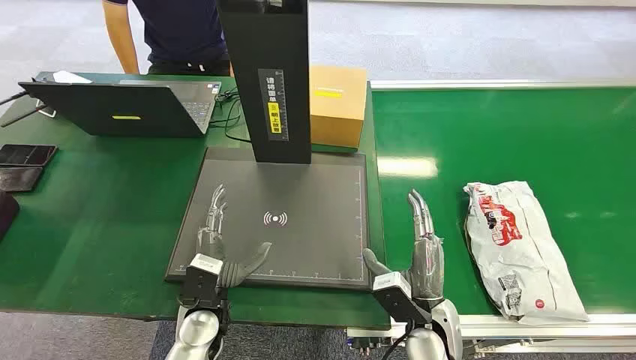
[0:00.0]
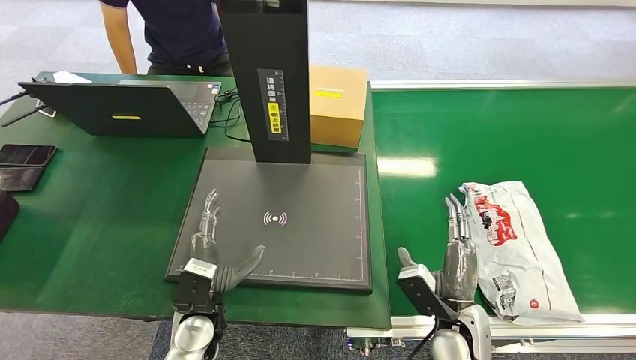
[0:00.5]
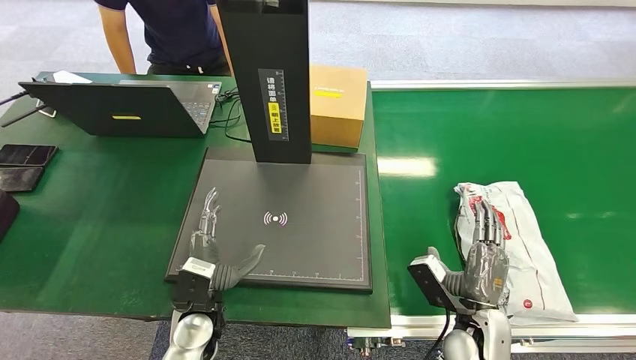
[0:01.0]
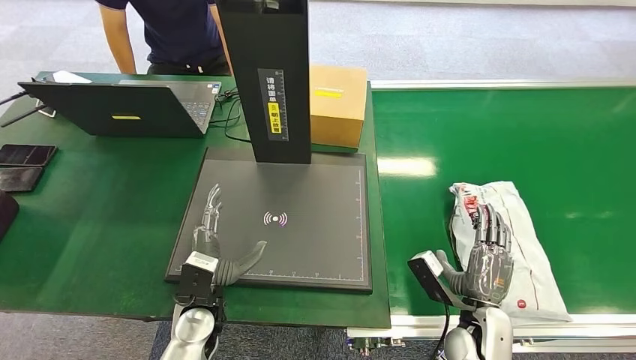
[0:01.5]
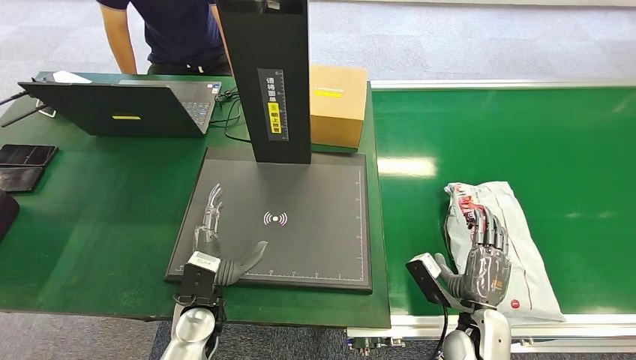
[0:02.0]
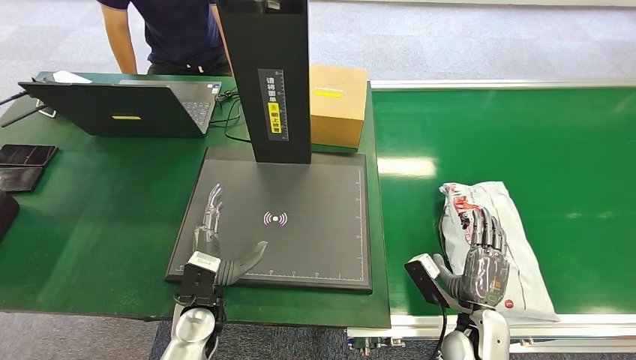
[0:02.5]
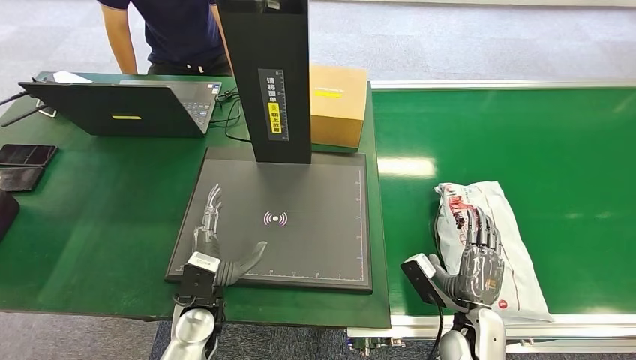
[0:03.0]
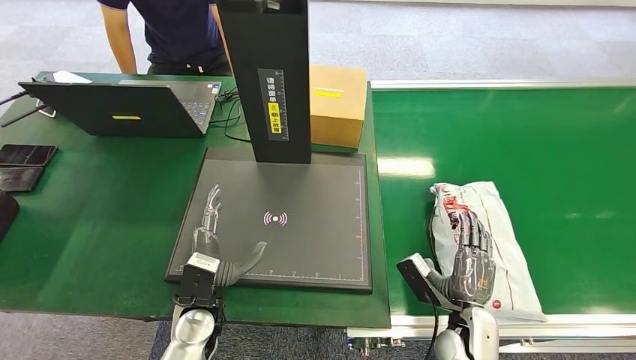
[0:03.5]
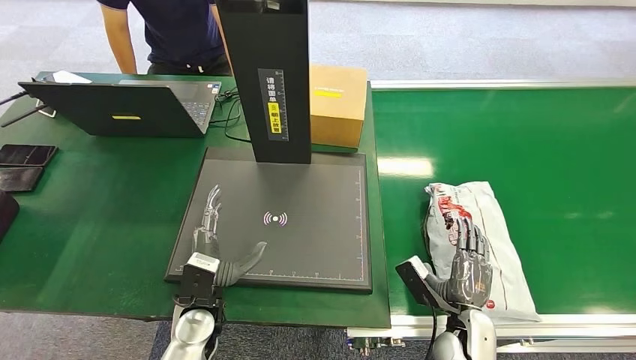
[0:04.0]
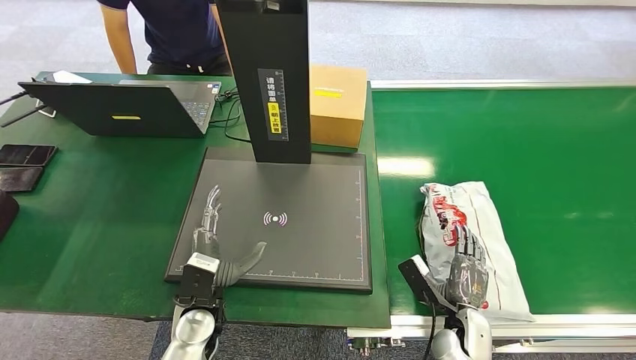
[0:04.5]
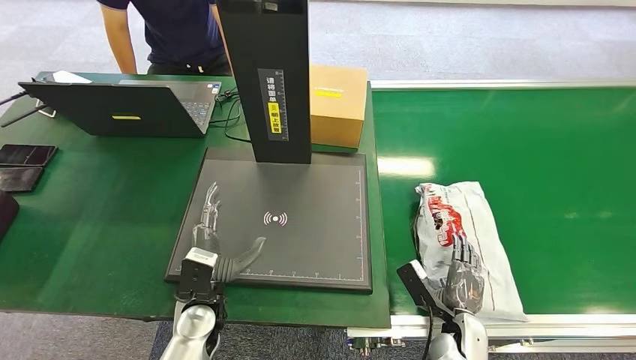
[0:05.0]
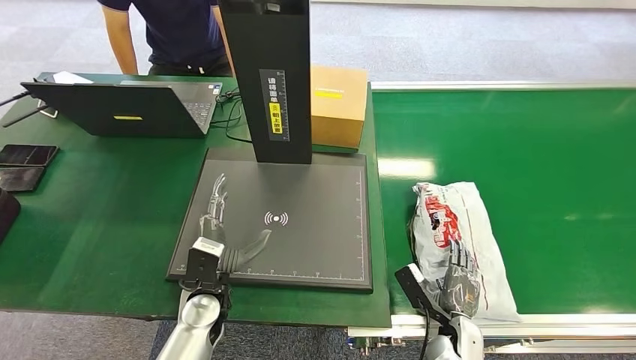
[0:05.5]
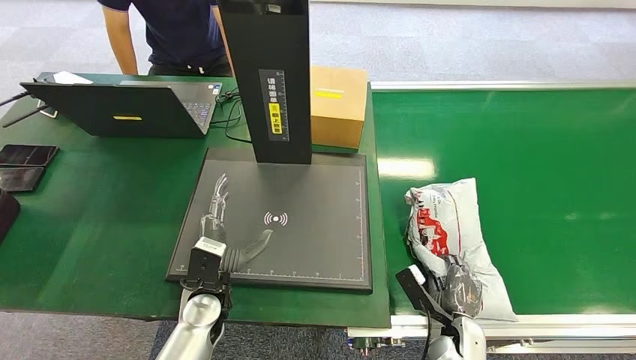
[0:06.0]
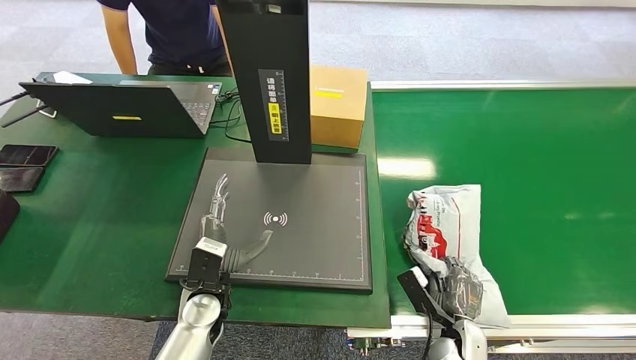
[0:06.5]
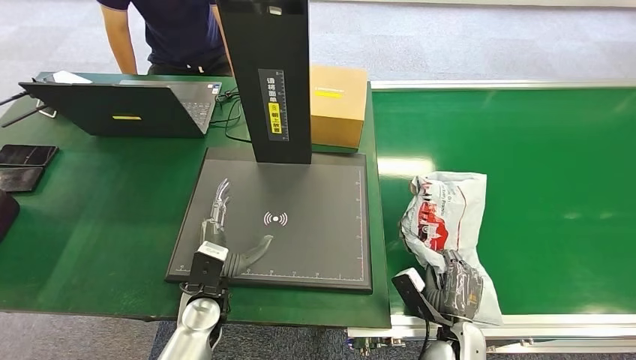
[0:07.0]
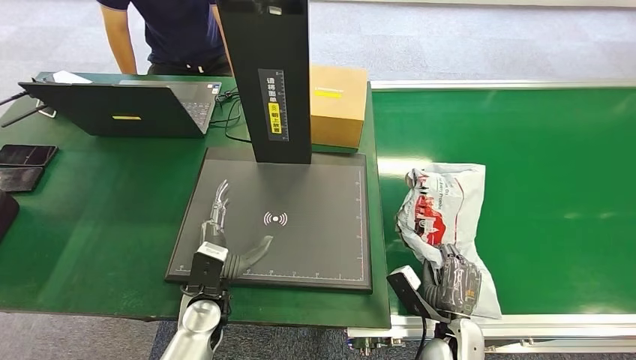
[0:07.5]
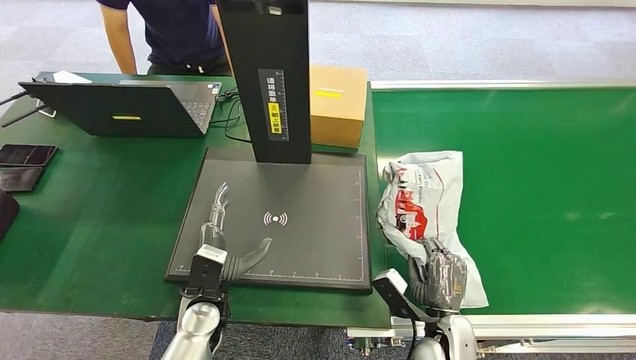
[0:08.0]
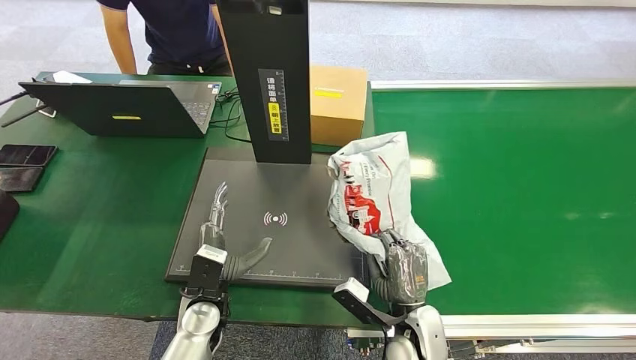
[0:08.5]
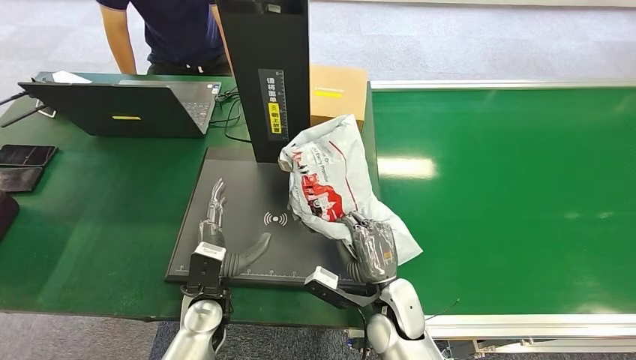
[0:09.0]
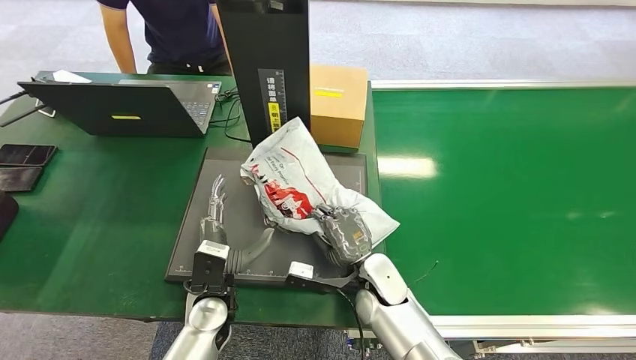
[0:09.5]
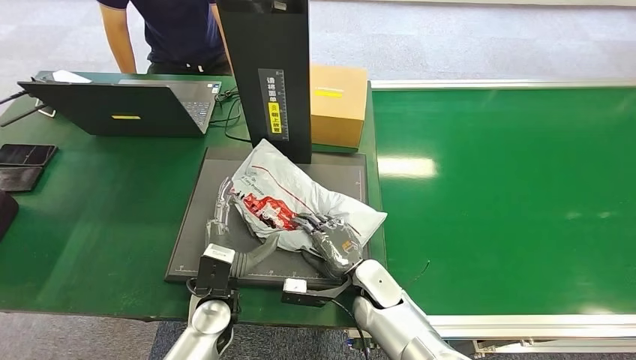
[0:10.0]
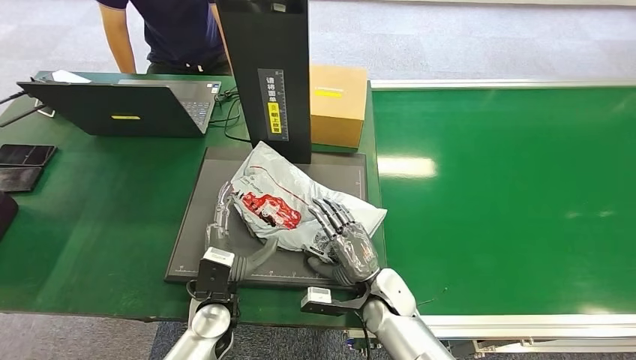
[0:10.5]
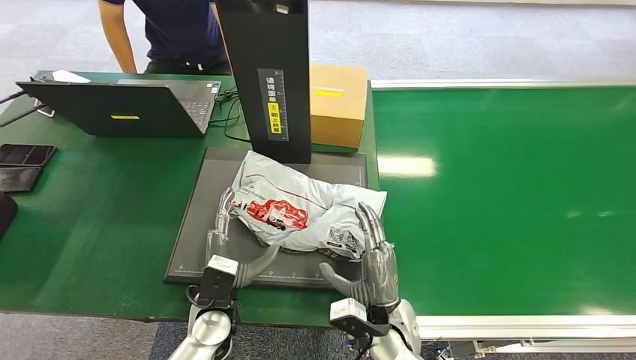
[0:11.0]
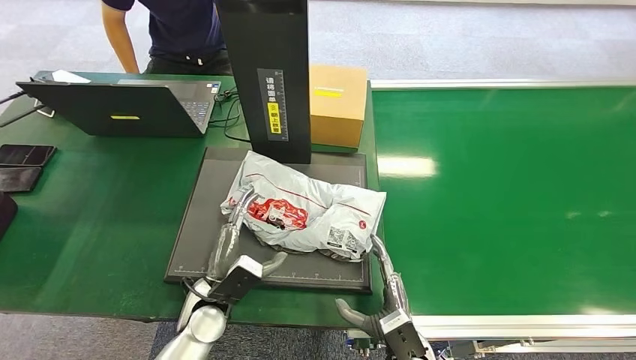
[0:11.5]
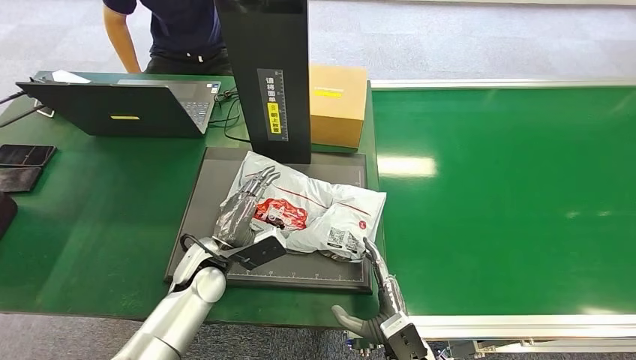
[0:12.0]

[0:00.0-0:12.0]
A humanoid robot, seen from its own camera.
Step, 0:00.0 to 0:08.0: Pick up the package from the conveyor belt.
Step, 0:08.5 to 0:11.0: Place the package onto the inbound machine.
0:02.0 to 0:04.0: There are only small adjustments of the hands.
0:04.0 to 0:06.0: The right hand is displaced downward by approximately 5 cm.
0:06.0 to 0:08.0: The right hand goes approximately 5 cm upward.
0:08.0 to 0:10.0: The right hand travels to the left and forward by approximately 15 cm.
0:10.0 to 0:12.0: The left hand is displaced forward by about 5 cm, while the right hand moves backward and to the right, approximately 15 cm.

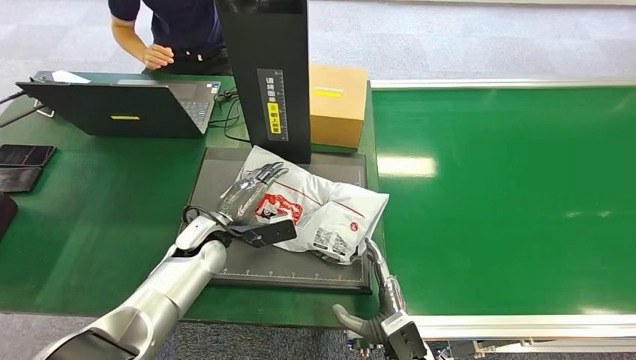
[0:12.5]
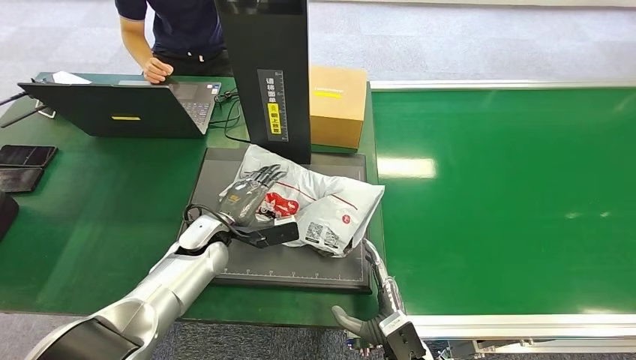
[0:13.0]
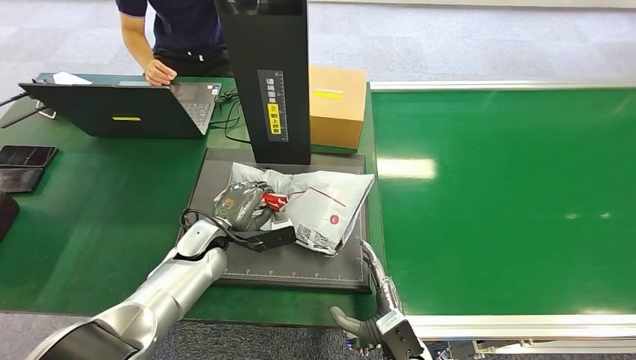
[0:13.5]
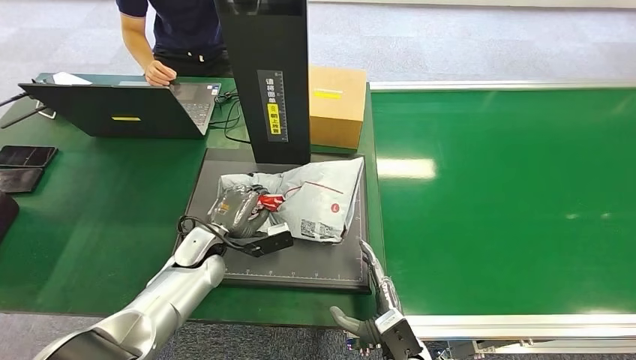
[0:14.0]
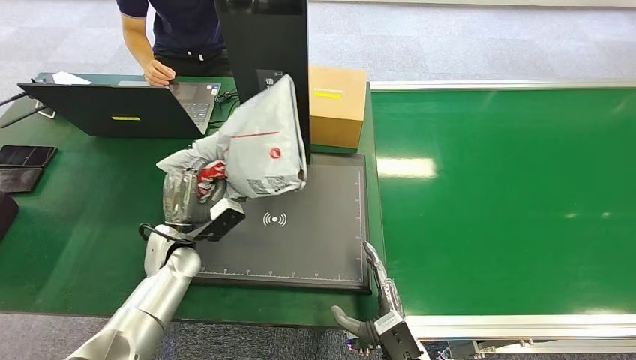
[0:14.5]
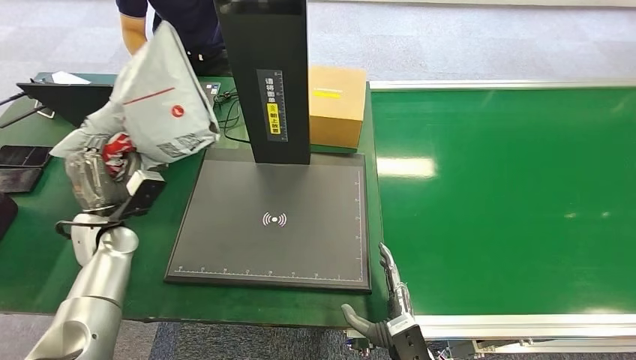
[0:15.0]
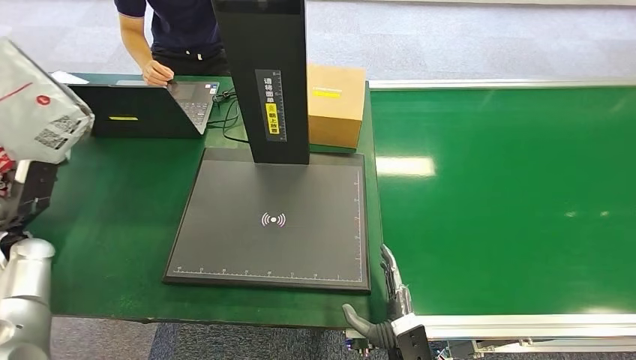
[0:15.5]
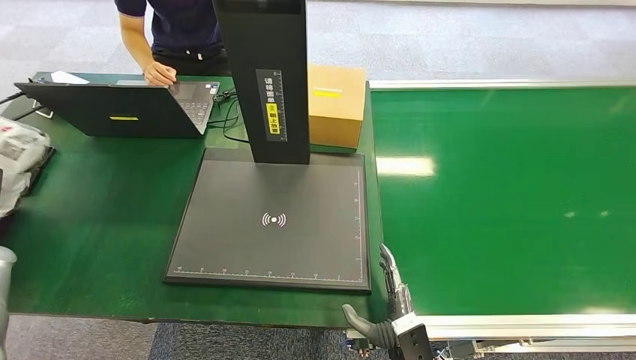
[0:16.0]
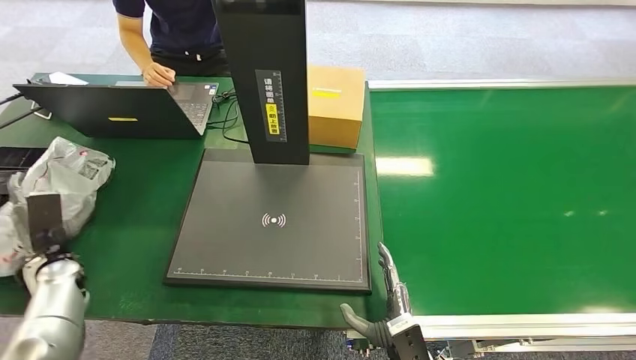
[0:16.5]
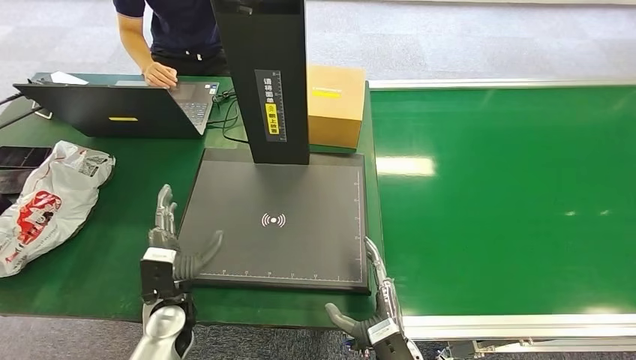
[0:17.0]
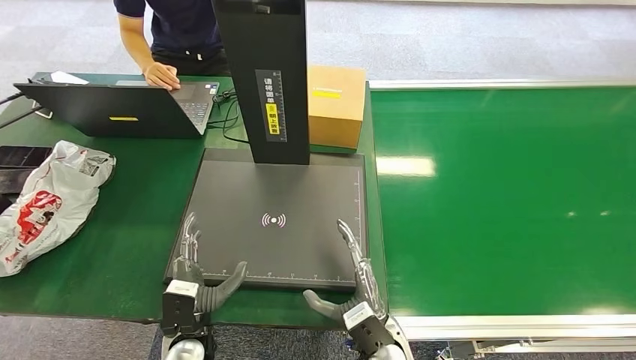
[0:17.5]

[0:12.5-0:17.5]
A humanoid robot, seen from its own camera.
Step, 0:12.5 to 0:14.5: Pick up the package from the inbound machine.
Step, 0:15.0 to 0:17.5: Place the package into the parcel locker.
